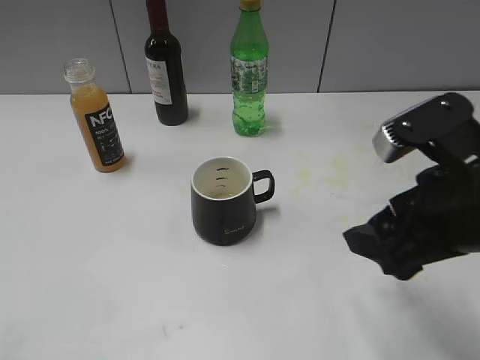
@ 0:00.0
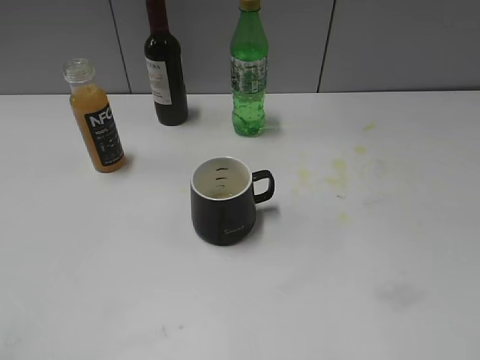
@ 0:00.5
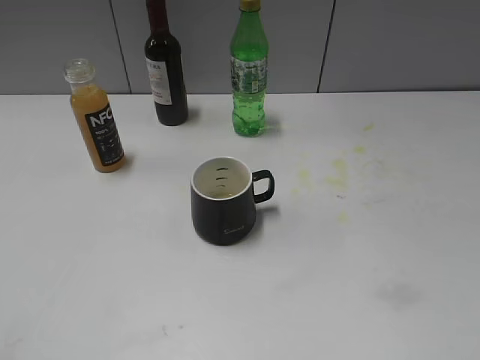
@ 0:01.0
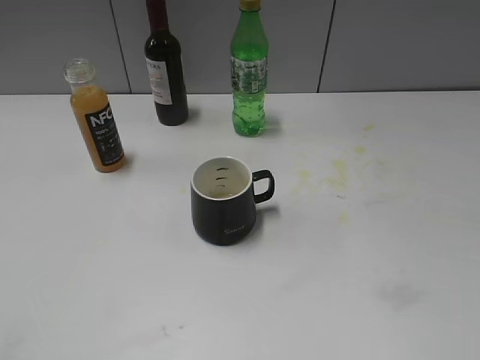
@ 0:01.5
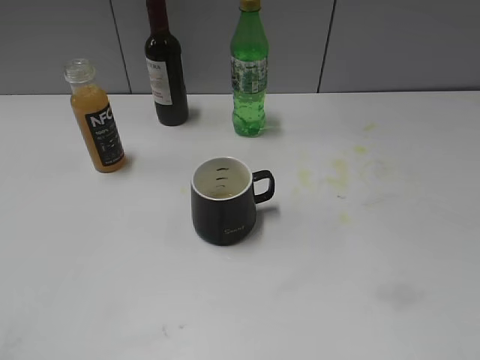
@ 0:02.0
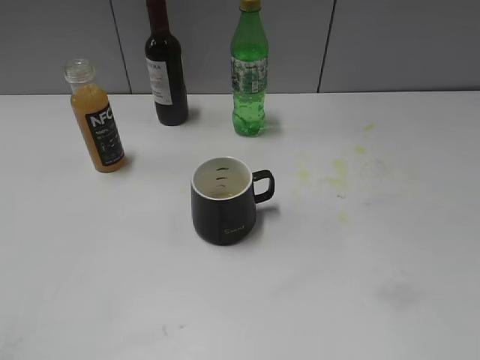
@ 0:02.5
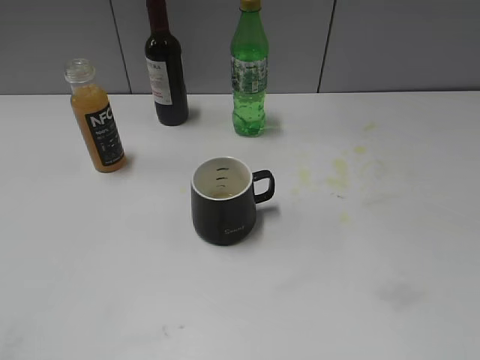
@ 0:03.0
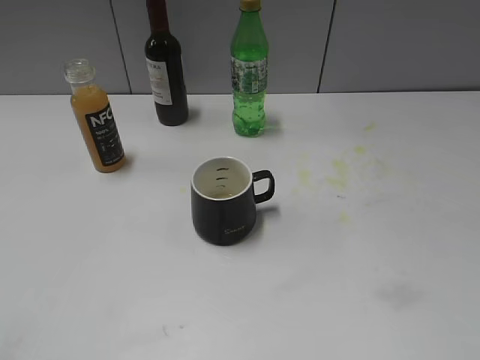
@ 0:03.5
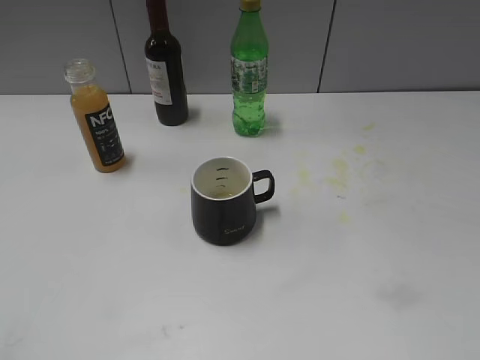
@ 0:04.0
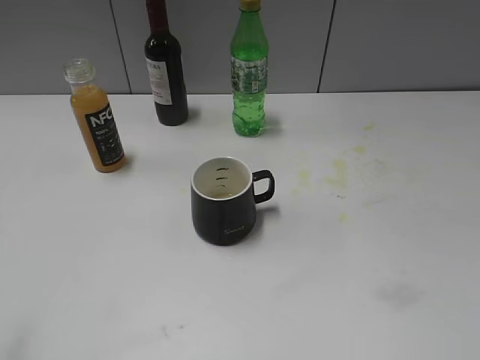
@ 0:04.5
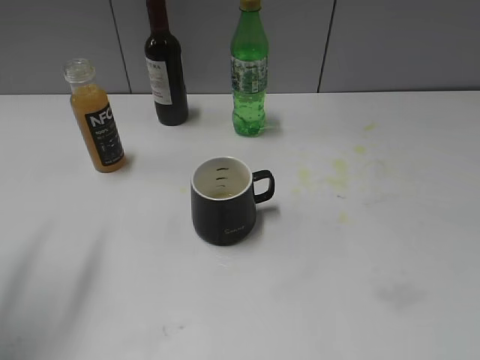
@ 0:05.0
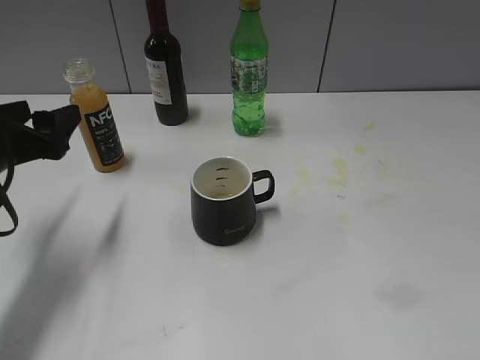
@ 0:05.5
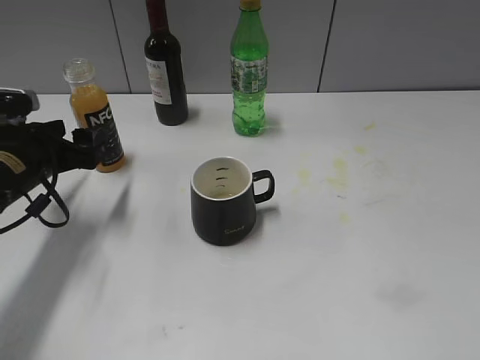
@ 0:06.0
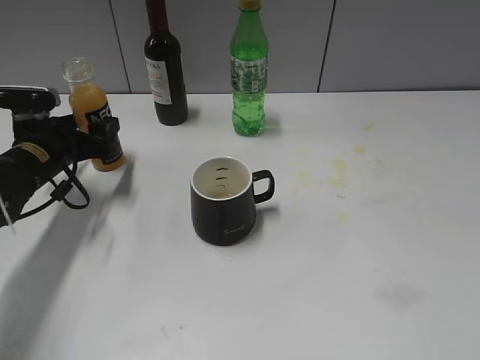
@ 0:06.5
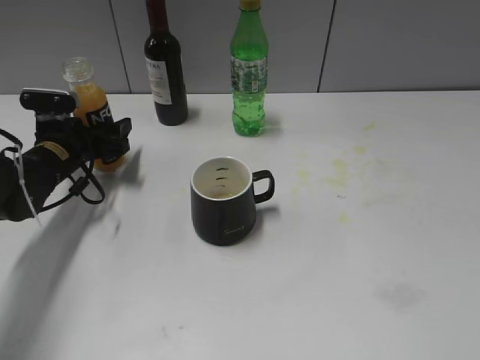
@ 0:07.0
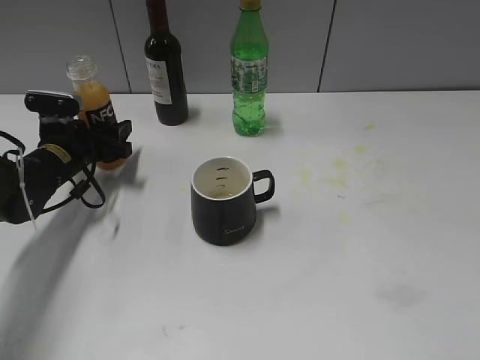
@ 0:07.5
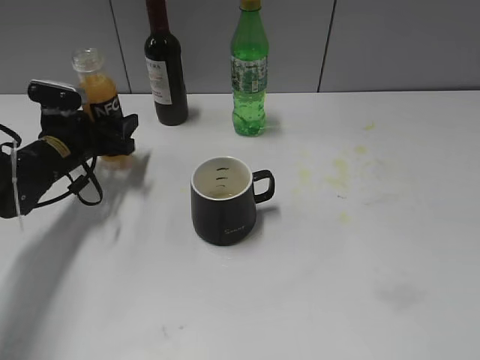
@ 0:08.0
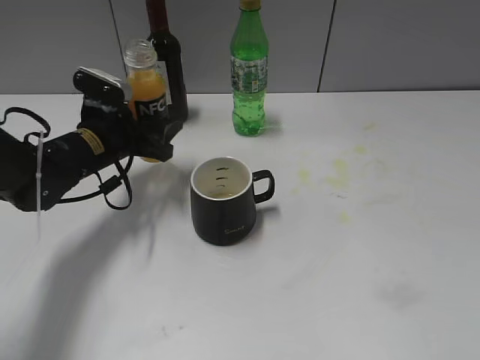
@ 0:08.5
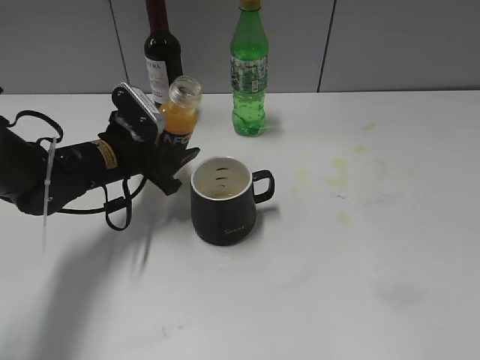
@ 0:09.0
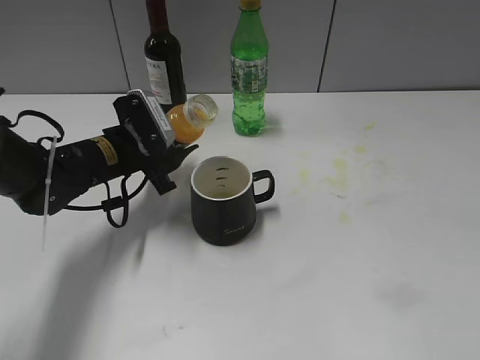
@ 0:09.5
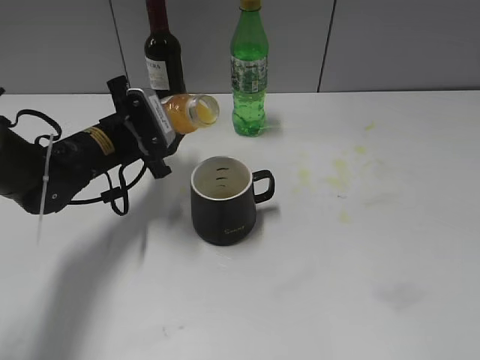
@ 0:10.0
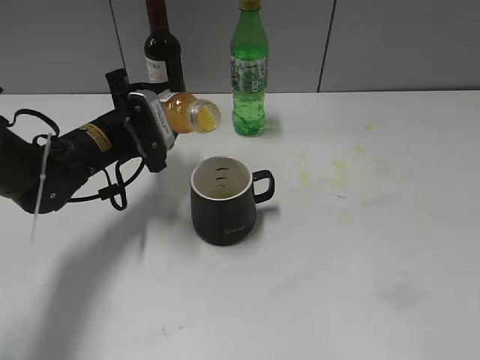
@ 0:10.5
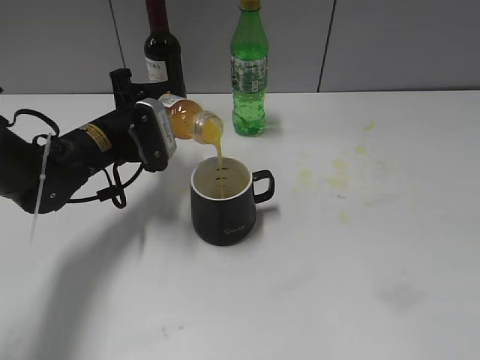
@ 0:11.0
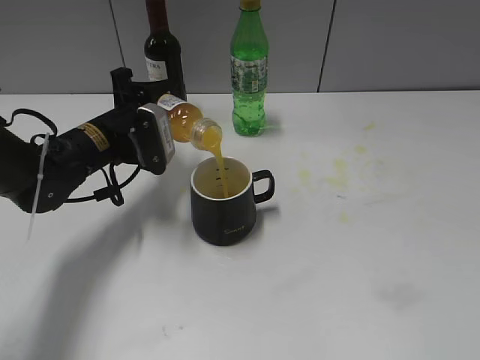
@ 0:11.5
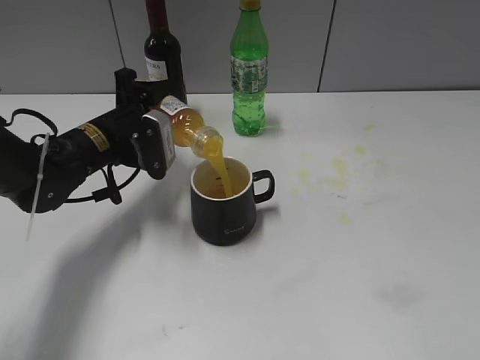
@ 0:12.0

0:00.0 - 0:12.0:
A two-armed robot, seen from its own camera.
Step, 0:00.0 - 0:07.5: Grasp the bottle with orange juice with left gripper.
0:00.0 - 0:02.0: The right gripper shifts approximately 20 cm backward and to the right.
0:04.0 - 0:06.0: The left gripper moves forward and downward, some 35 cm.
0:06.0 - 0:08.0: The left gripper travels forward by approximately 10 cm, and closes its fingers.
0:08.0 - 0:10.0: The left gripper goes about 10 cm to the right.

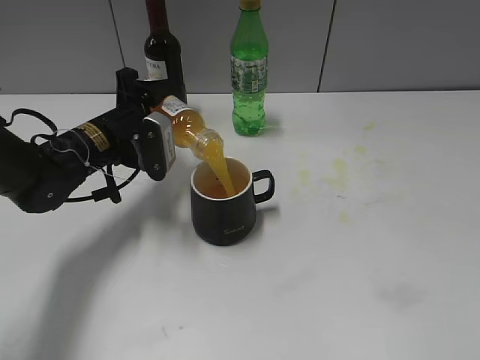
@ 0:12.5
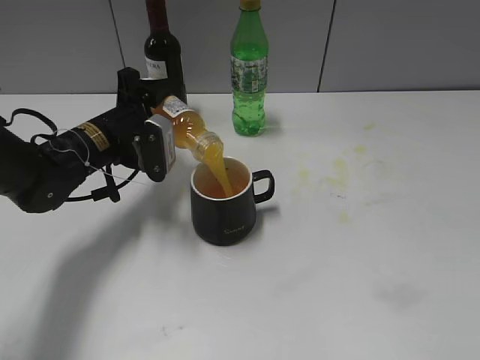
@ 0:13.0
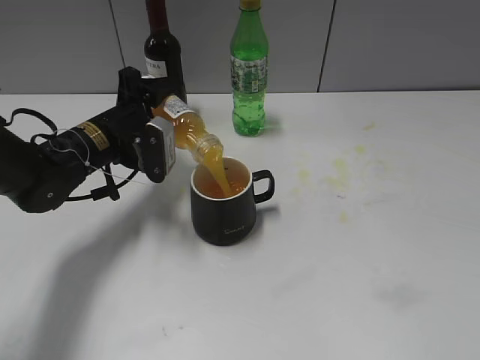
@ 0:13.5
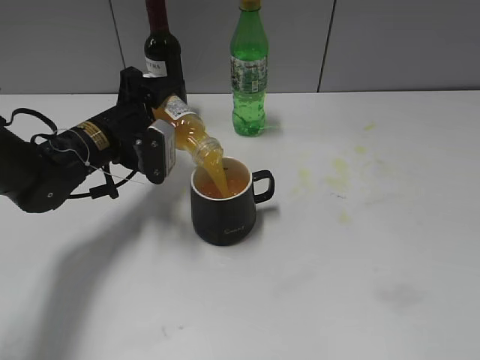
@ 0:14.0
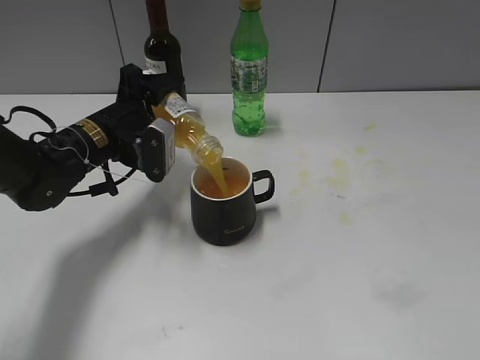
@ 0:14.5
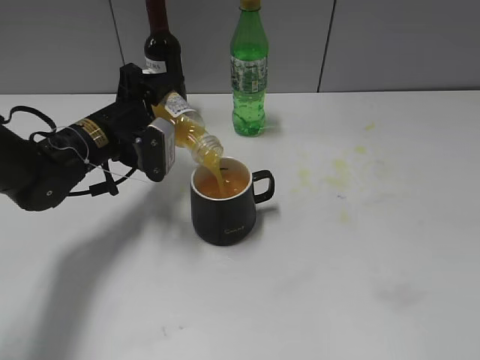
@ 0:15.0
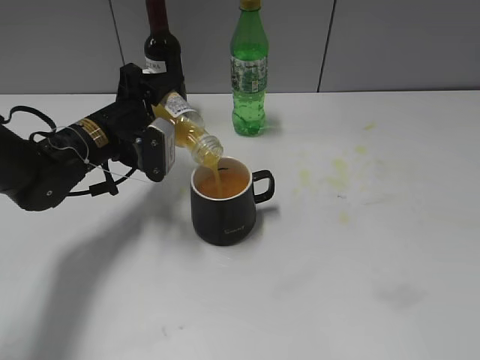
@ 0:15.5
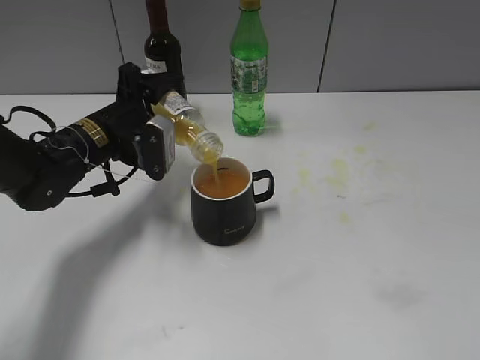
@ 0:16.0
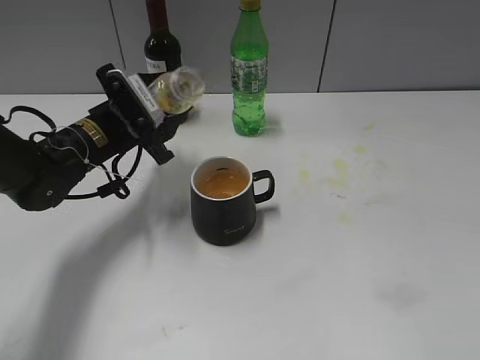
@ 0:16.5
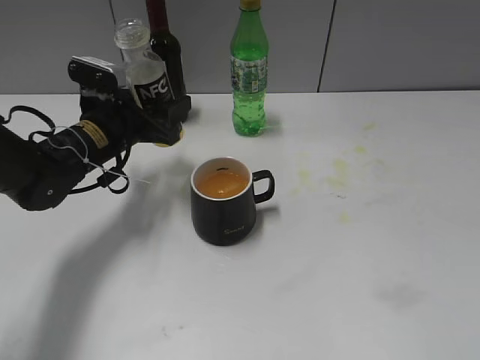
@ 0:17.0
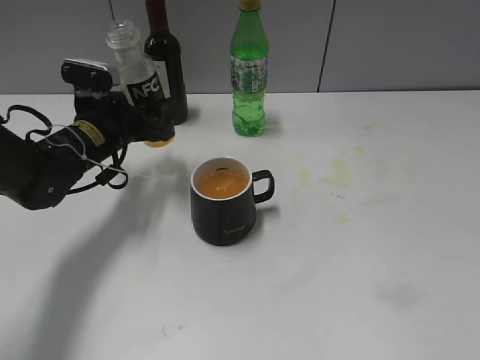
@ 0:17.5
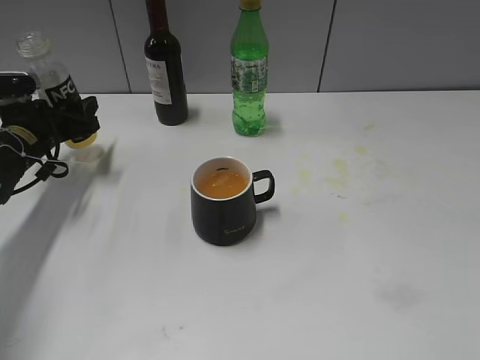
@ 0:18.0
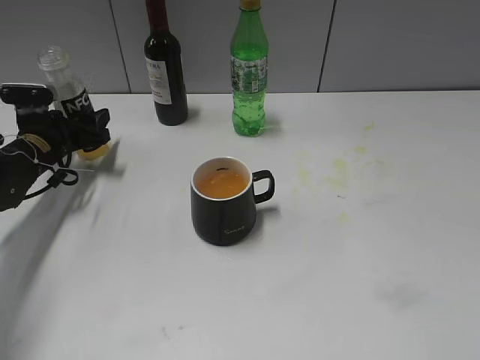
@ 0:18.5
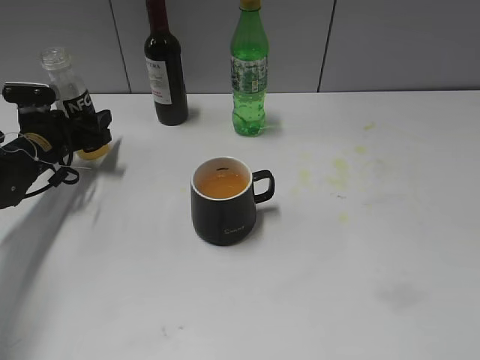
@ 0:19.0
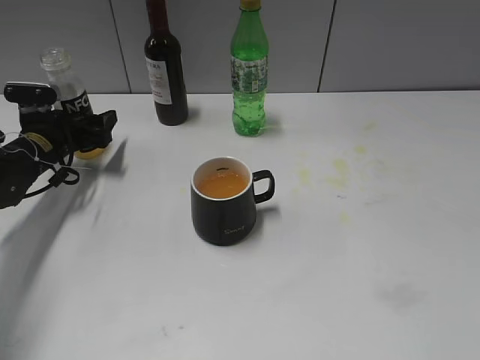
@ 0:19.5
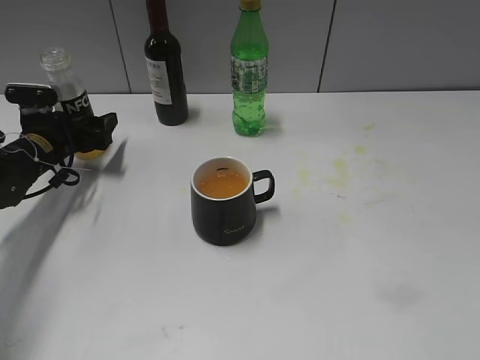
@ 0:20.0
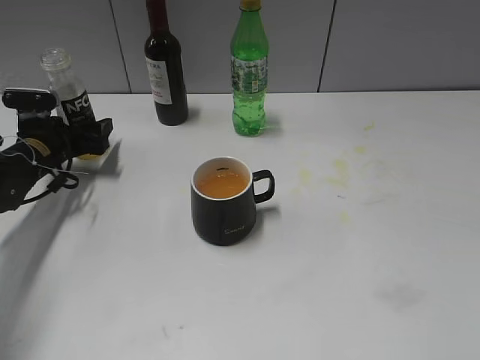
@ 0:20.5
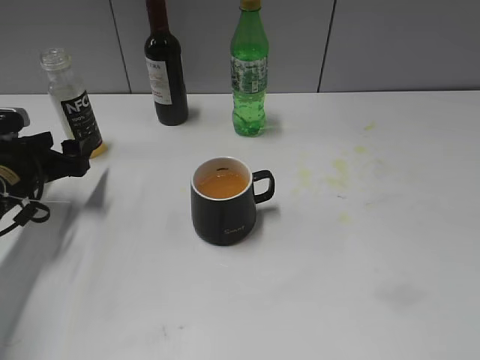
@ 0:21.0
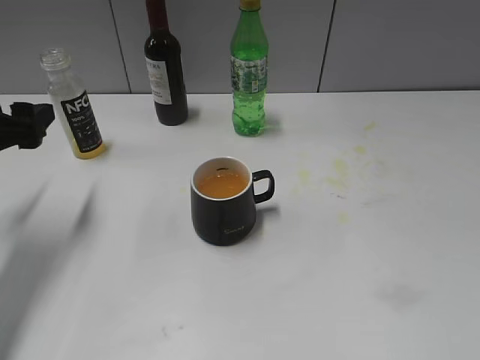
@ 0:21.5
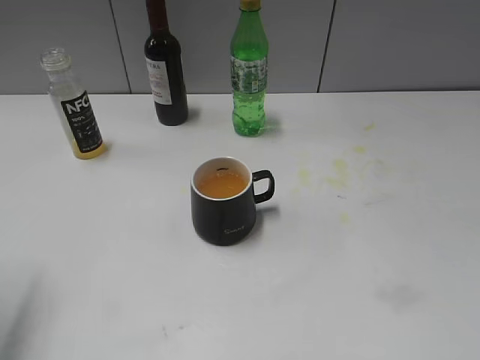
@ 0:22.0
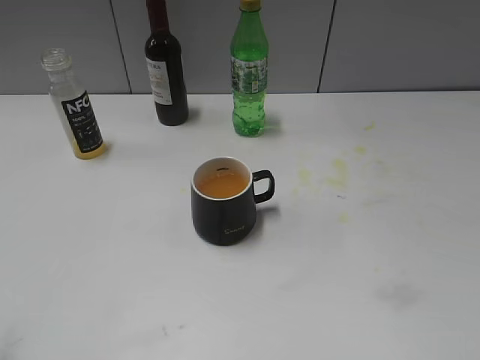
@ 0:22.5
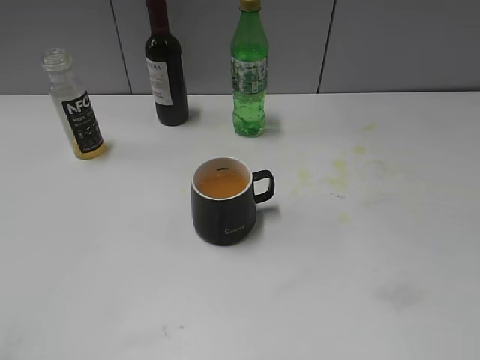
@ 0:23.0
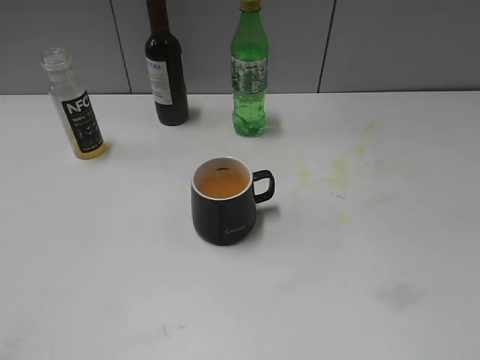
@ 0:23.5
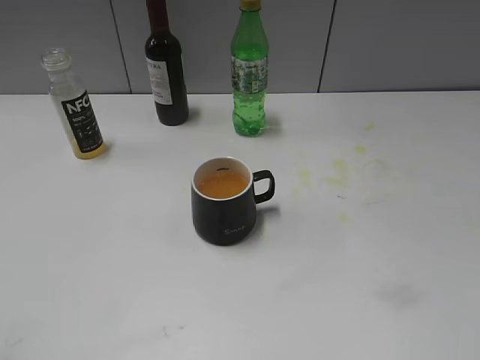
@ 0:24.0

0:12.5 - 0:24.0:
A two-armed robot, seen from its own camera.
Step, 0:12.5 - 0:16.0: Pour the orange juice from bottle to cup with left gripper.
Step, 0:16.5 - 0:19.0: Place the orange juice bottle on the table with left gripper.
0:12.5 - 0:14.5: The grippers stay close to where they were, moving slightly.
0:16.5 - 0:18.5: The left gripper shifts about 15 cm to the left and downward.
0:18.5 - 0:20.0: The left gripper opens its fingers.
0:20.0 - 0:22.0: The left gripper travels backward and upward by roughly 30 cm.
0:22.0 - 0:24.0: The left gripper is displaced backward by roughly 20 cm.

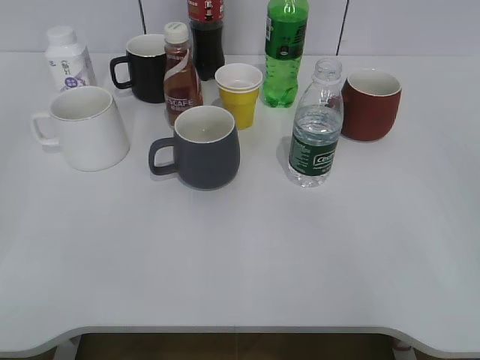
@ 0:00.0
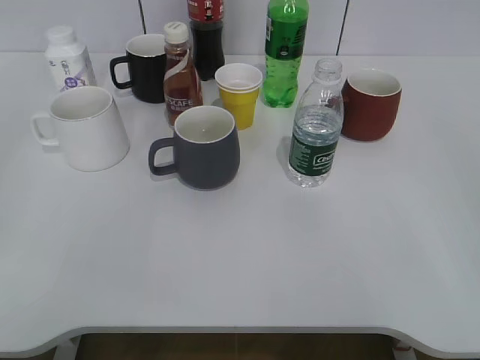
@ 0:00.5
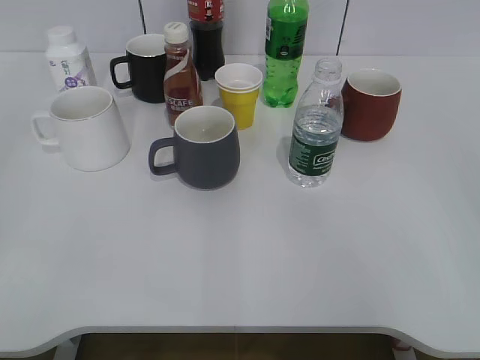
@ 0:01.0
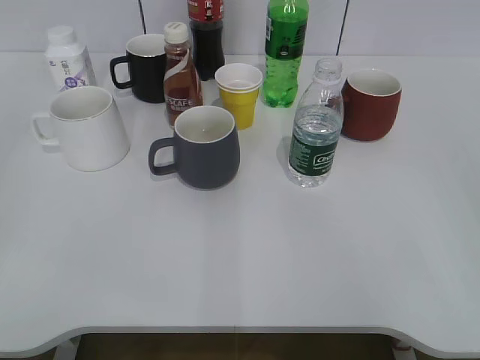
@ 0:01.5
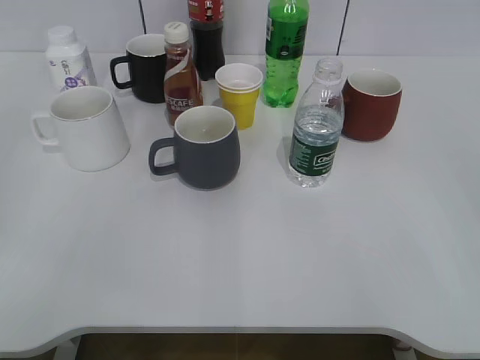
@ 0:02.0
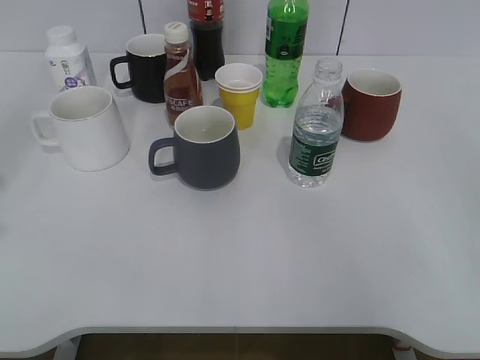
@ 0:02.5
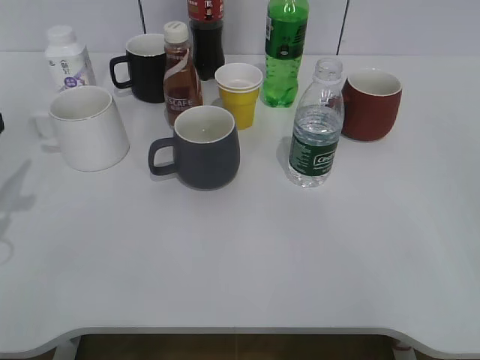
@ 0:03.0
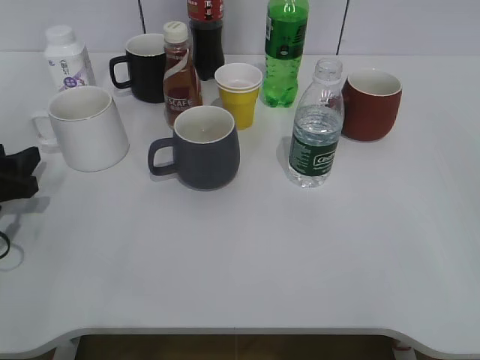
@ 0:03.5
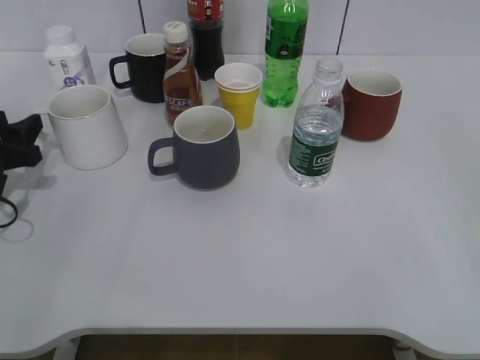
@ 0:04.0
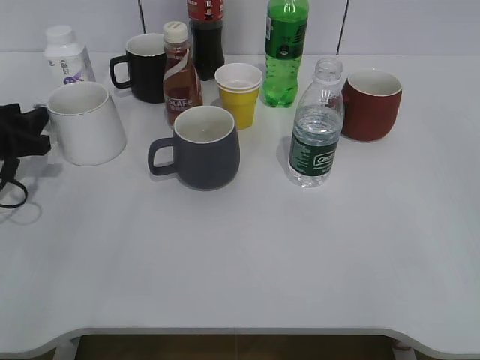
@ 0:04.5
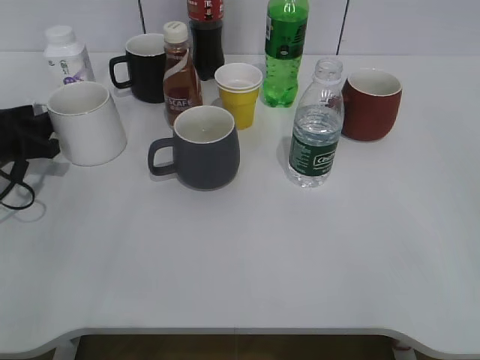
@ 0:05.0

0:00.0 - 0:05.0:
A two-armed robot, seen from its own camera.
0:02.5 - 0:05.0: The left gripper travels forward and downward by some 30 cm.
